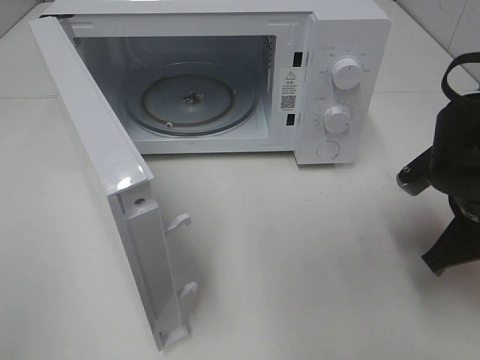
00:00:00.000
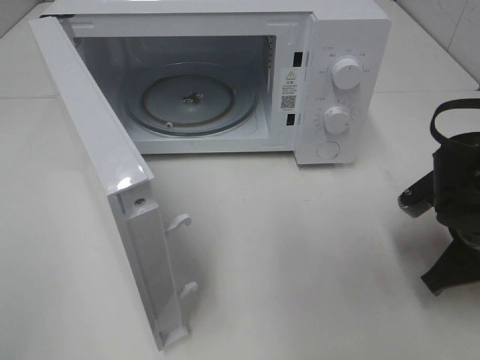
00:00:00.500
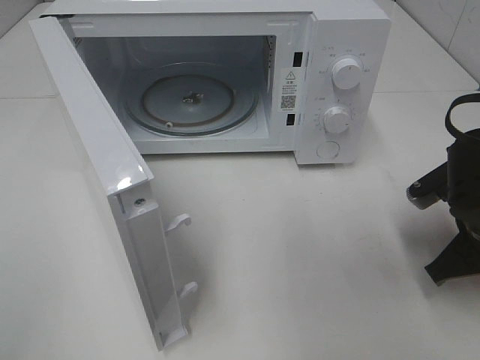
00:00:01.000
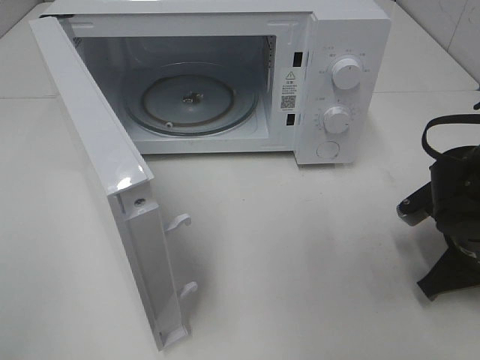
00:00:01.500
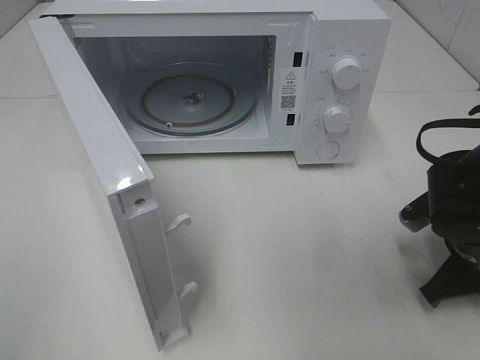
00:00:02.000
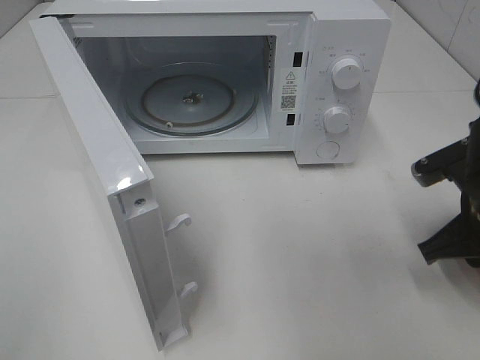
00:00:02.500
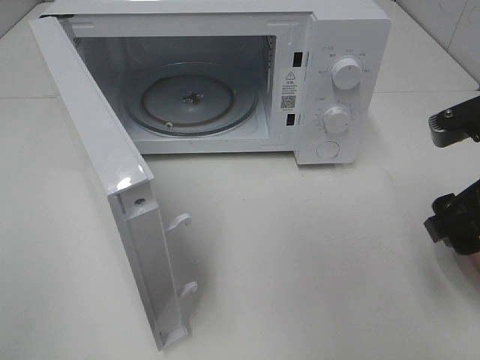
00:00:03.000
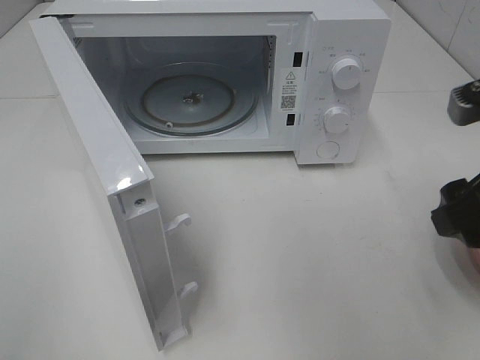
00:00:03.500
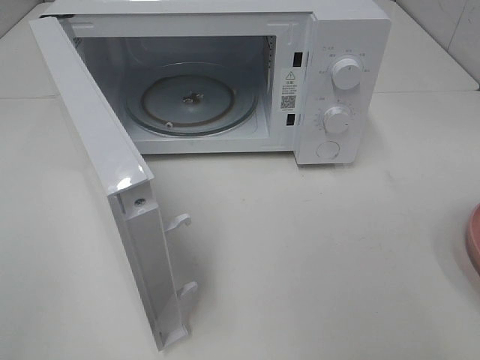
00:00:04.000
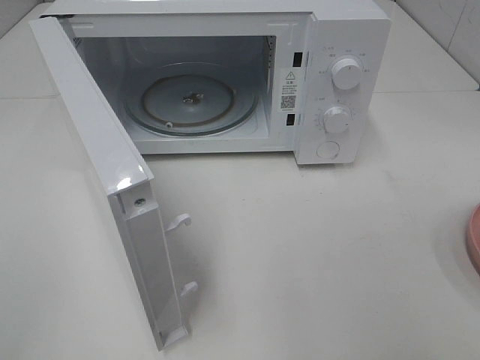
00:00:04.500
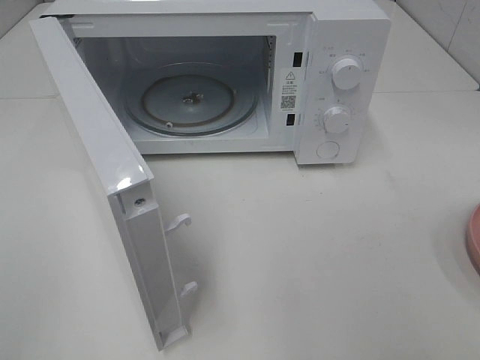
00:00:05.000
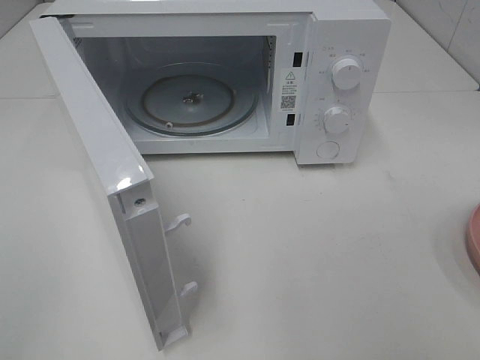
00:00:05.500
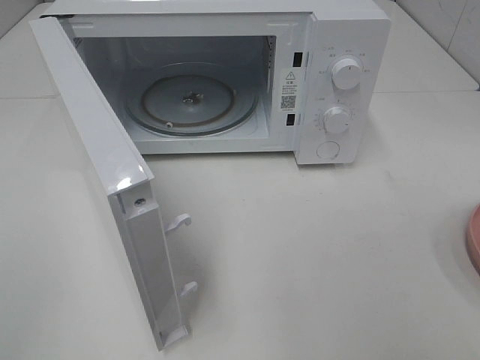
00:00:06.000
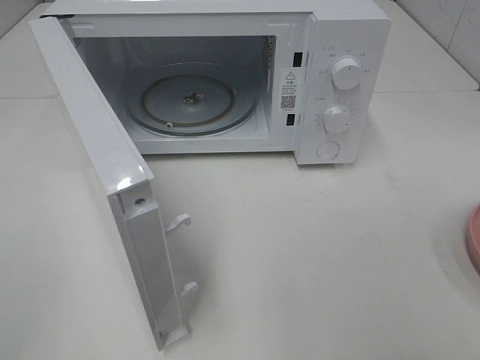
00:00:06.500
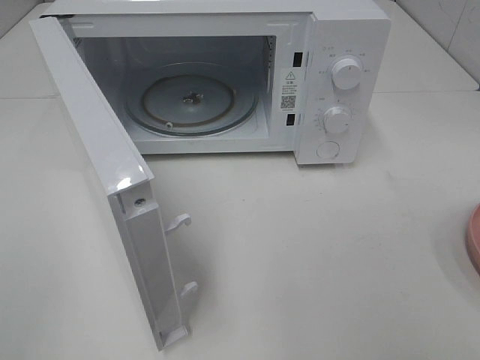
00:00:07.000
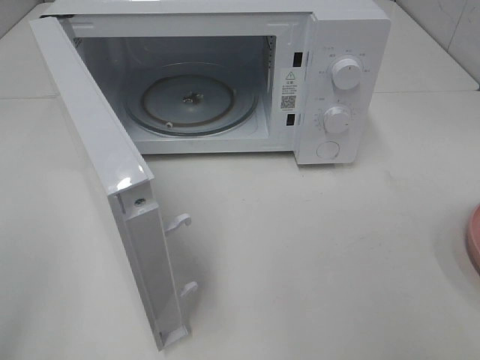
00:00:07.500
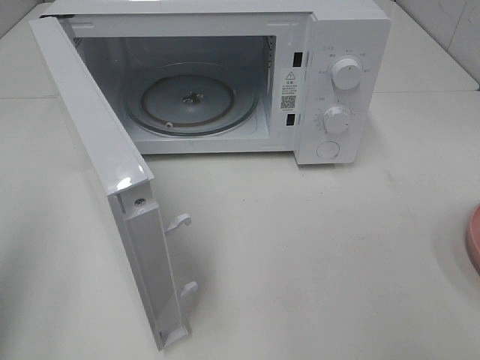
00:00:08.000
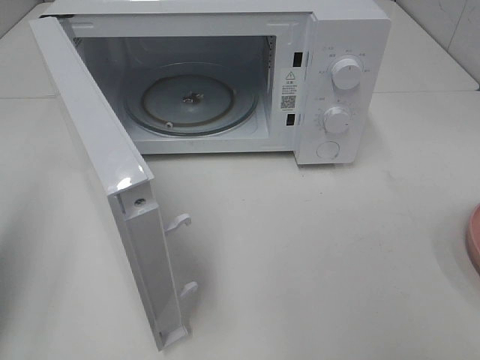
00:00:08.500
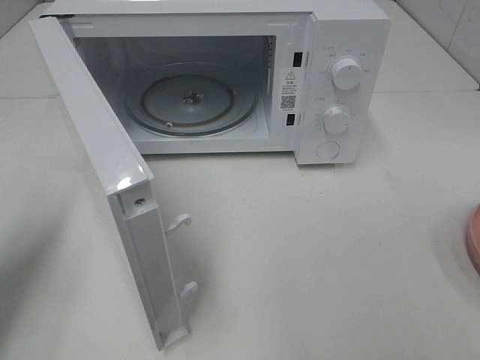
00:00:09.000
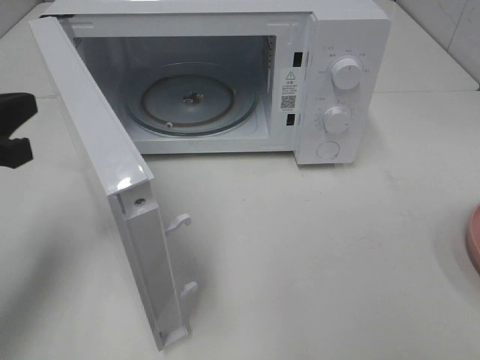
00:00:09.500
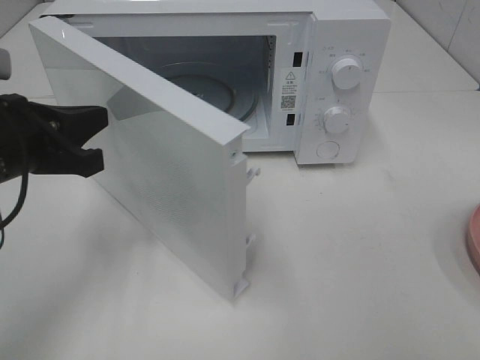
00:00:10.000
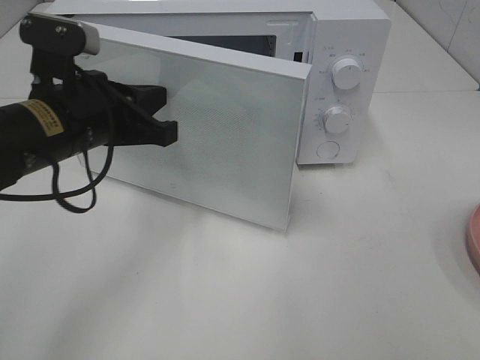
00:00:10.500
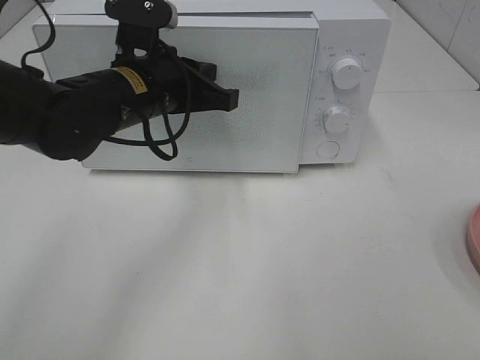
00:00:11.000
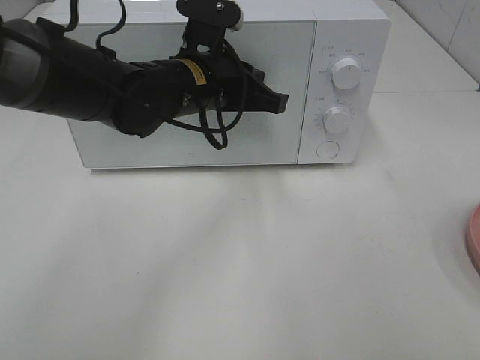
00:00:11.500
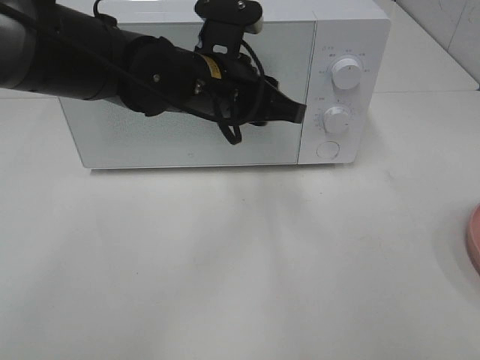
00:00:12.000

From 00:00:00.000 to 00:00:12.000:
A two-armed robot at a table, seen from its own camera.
Task of the whole recording: Heat the burger.
Step, from 00:00:00.000 to 00:00:02.500: Right hand: place the plate on the table.
Step, from 00:00:03.000 to 00:00:11.500: Left hand: close the microwave door.
From 00:00:00.000 to 00:00:02.000: The right gripper is displaced downward by some 5 cm.
From 00:00:02.000 to 00:00:04.000: The right gripper moves upward and backward, approximately 25 cm, and opens up.
From 00:00:06.000 to 00:00:08.000: The left gripper moves forward, roughly 10 cm, and closes.
From 00:00:08.000 to 00:00:10.000: The left gripper heads forward, to the right and downward, covering about 20 cm.
From 00:00:10.000 to 00:00:12.000: The left gripper goes about 20 cm to the right and forward, and opens its fingers.

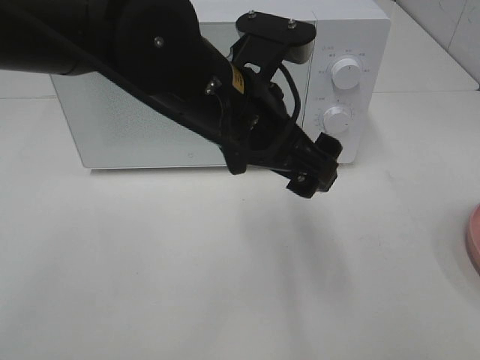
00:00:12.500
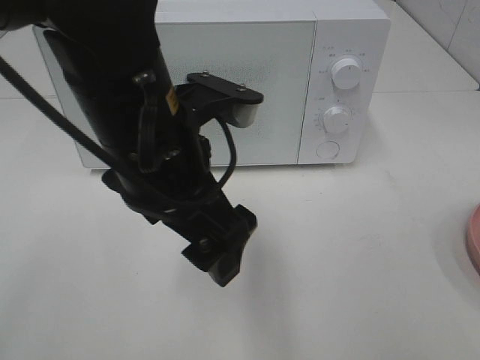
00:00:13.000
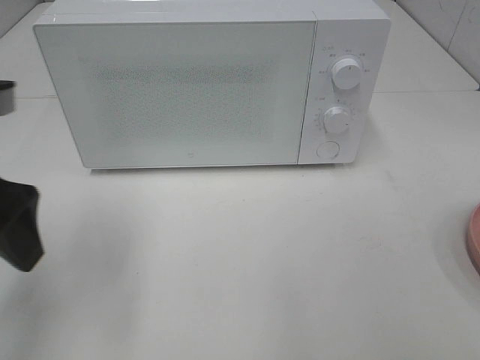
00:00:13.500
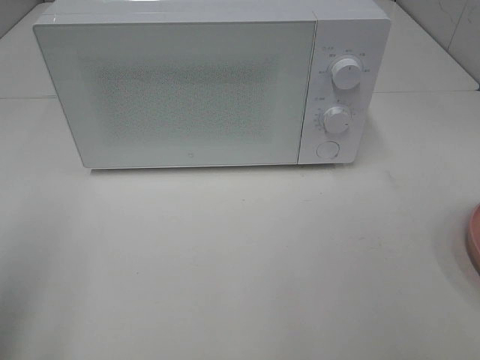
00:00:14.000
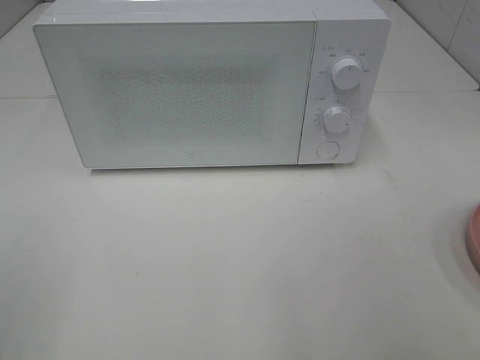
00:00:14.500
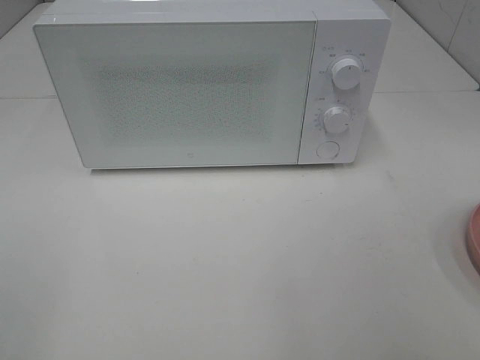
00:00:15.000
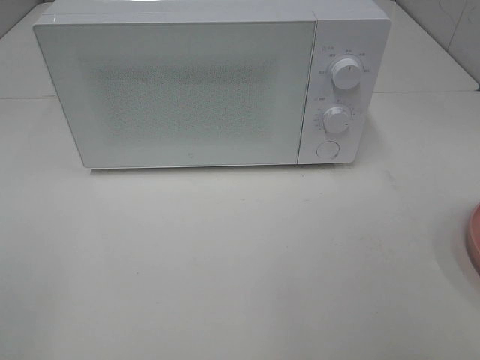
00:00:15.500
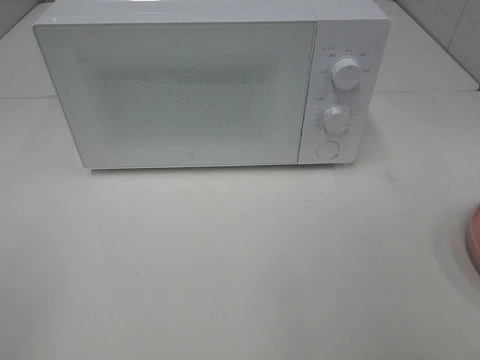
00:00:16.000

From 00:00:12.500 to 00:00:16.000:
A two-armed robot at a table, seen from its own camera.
Task of the whole recording: Heat the burger.
From 00:00:12.500 to 00:00:14.500: The left gripper goes some 40 cm to the left and backward.
